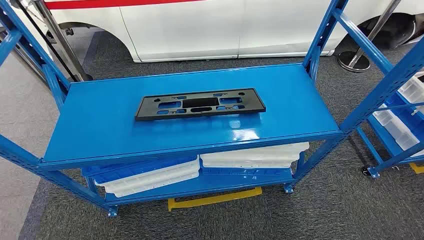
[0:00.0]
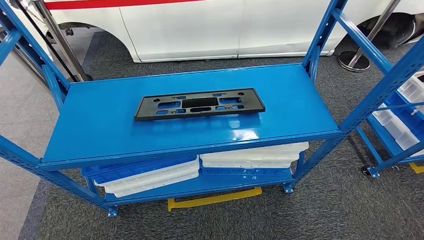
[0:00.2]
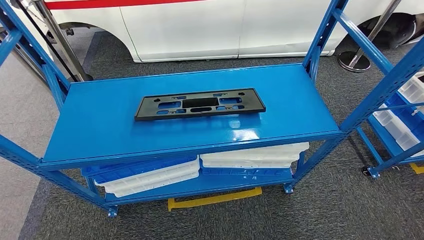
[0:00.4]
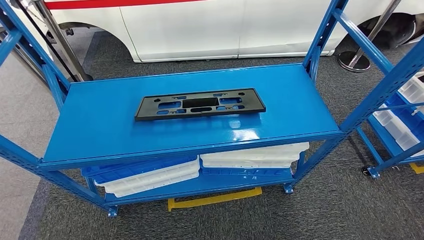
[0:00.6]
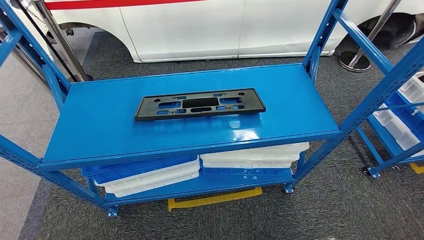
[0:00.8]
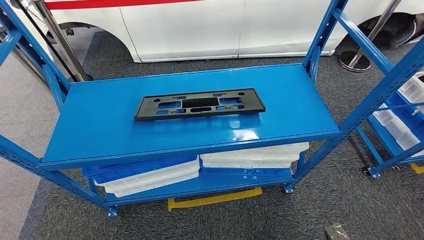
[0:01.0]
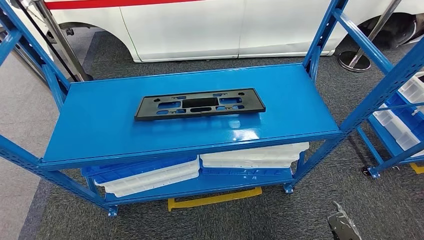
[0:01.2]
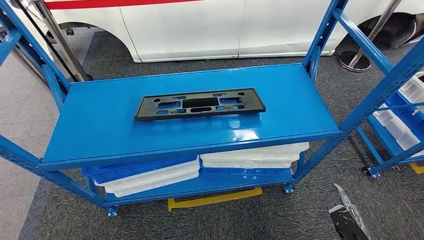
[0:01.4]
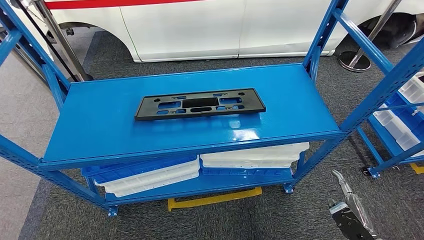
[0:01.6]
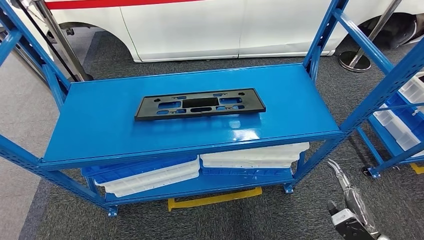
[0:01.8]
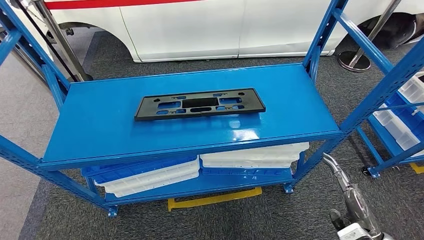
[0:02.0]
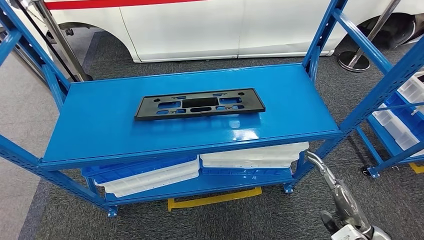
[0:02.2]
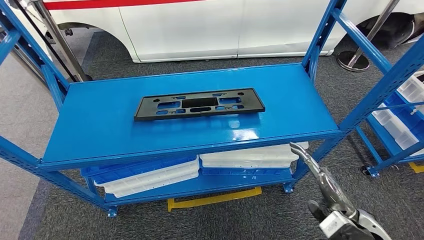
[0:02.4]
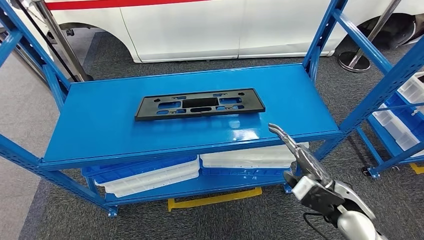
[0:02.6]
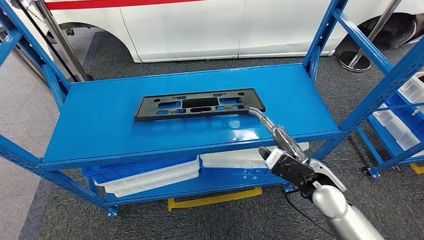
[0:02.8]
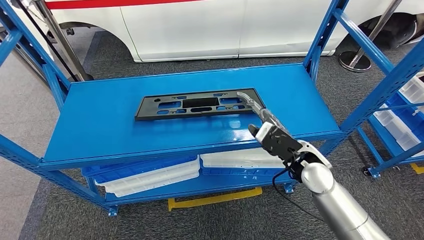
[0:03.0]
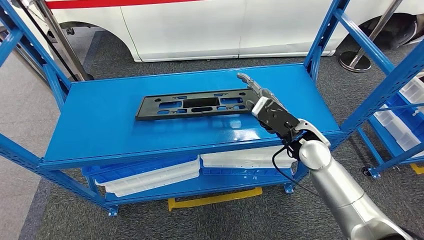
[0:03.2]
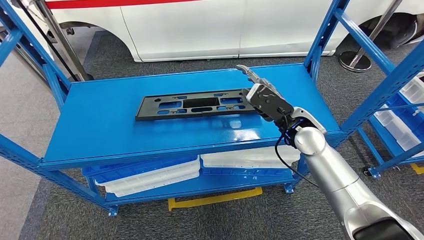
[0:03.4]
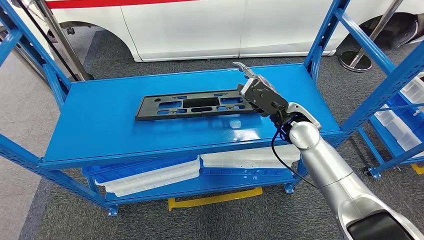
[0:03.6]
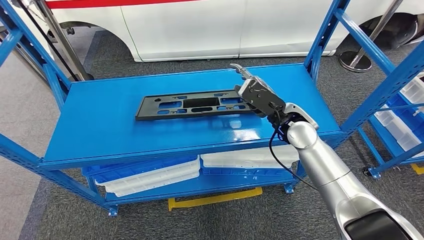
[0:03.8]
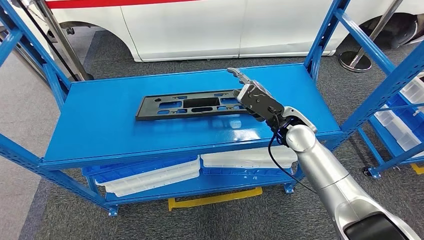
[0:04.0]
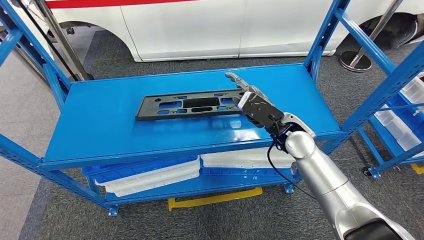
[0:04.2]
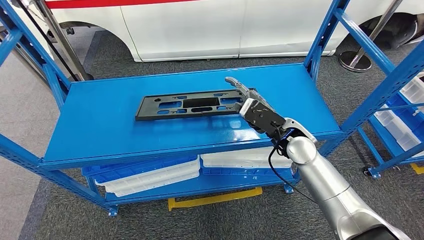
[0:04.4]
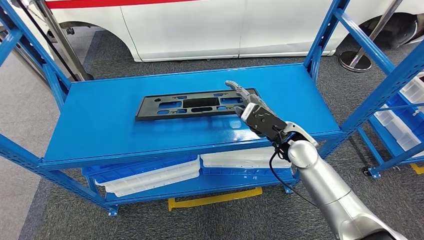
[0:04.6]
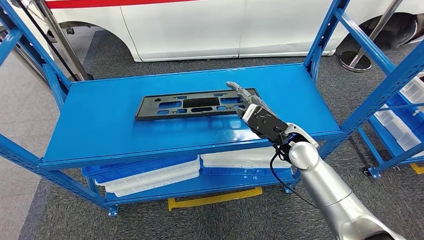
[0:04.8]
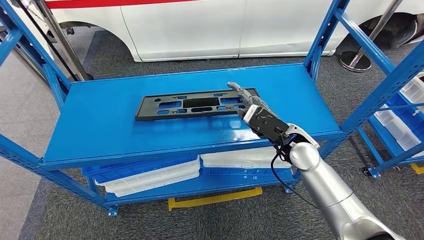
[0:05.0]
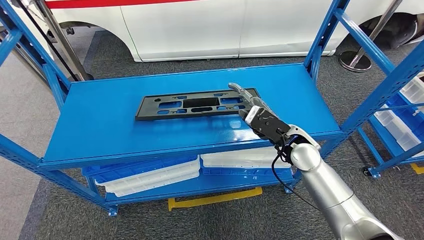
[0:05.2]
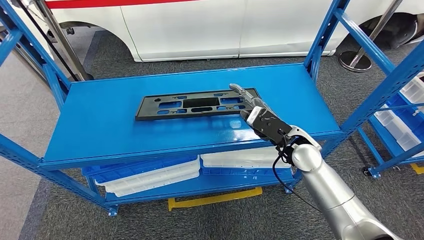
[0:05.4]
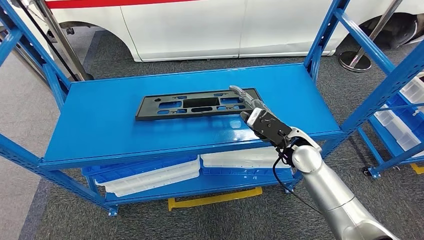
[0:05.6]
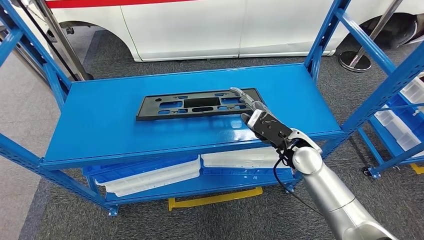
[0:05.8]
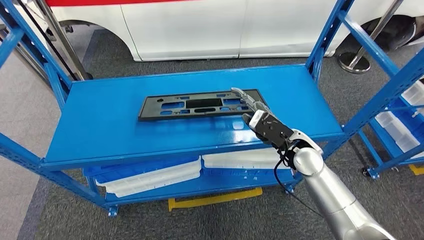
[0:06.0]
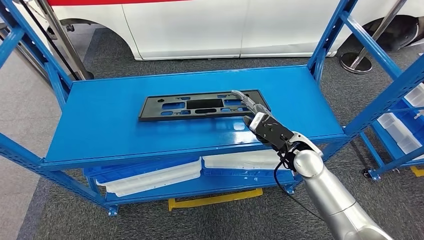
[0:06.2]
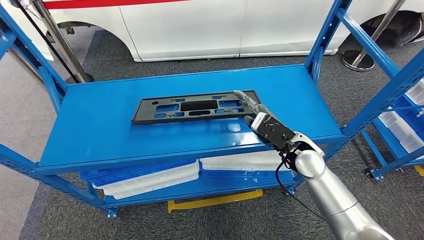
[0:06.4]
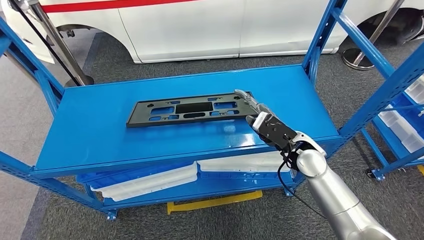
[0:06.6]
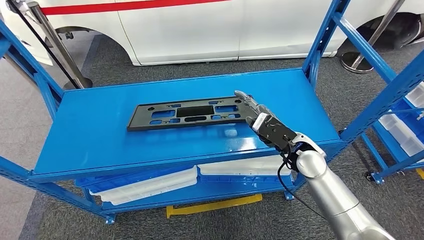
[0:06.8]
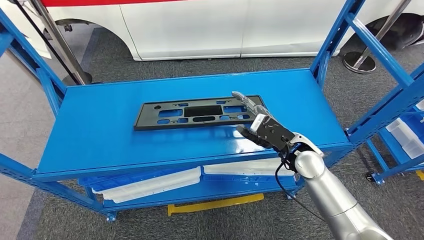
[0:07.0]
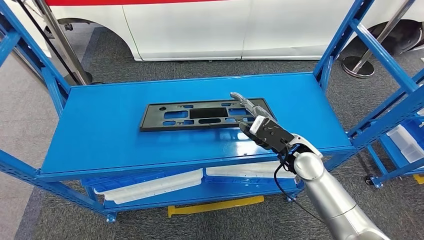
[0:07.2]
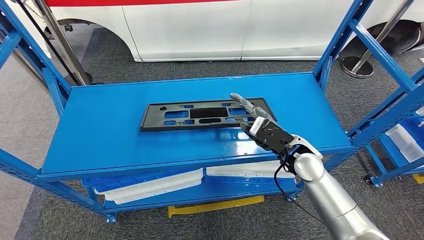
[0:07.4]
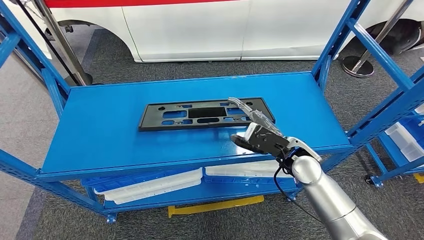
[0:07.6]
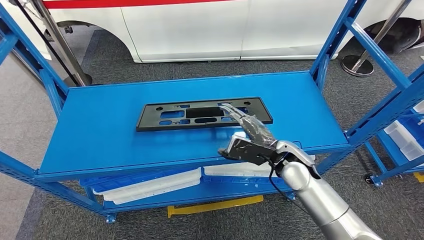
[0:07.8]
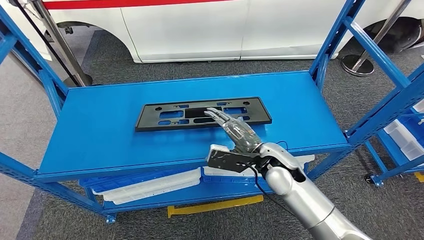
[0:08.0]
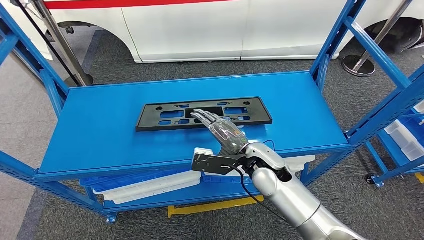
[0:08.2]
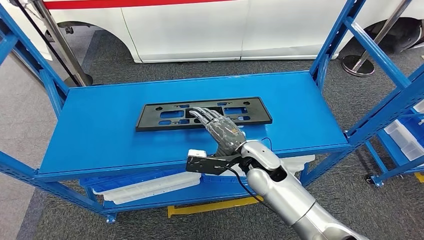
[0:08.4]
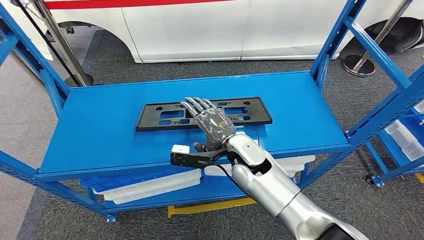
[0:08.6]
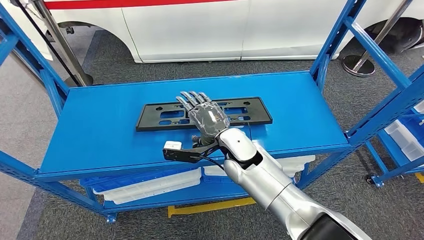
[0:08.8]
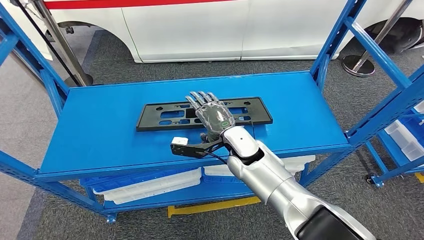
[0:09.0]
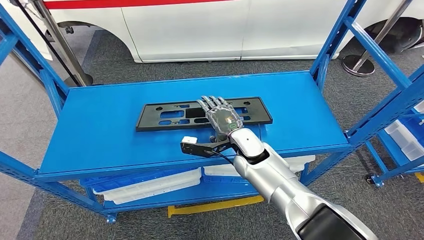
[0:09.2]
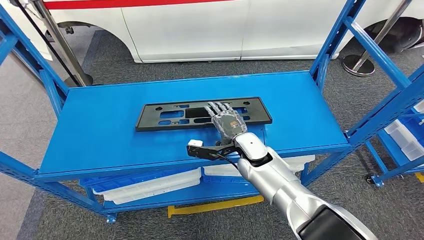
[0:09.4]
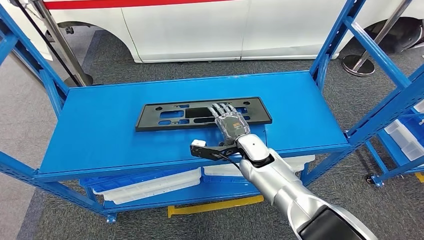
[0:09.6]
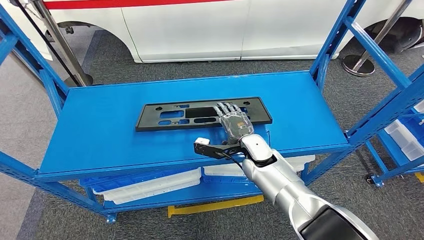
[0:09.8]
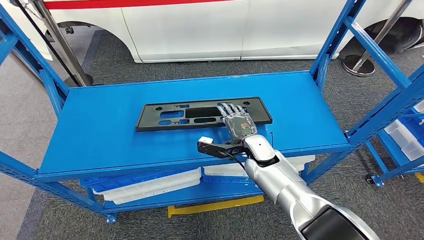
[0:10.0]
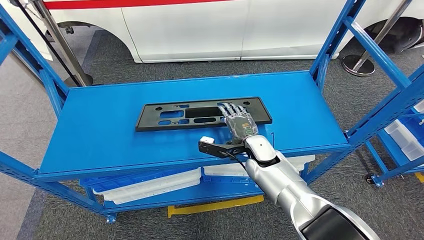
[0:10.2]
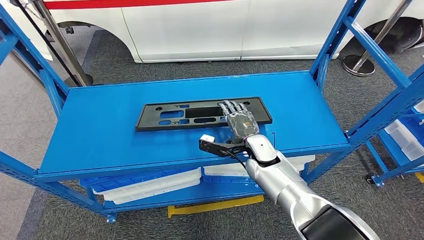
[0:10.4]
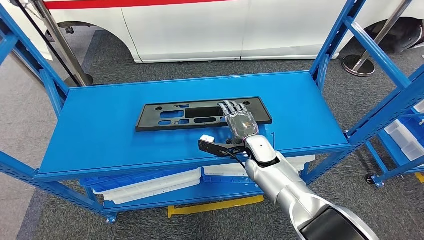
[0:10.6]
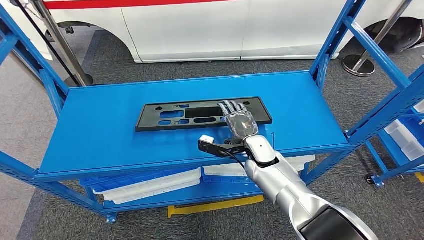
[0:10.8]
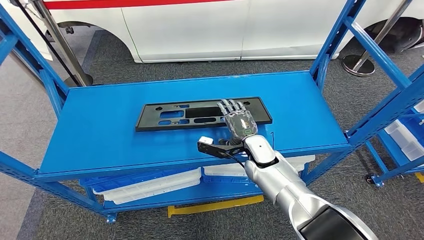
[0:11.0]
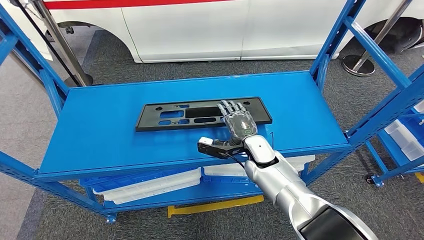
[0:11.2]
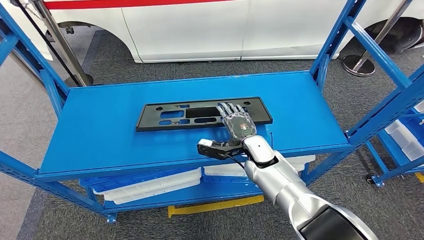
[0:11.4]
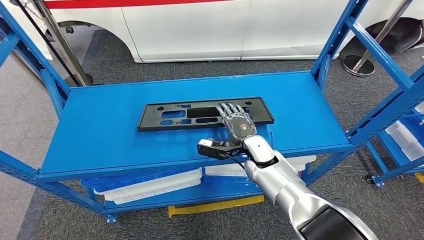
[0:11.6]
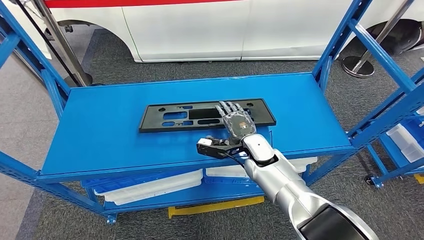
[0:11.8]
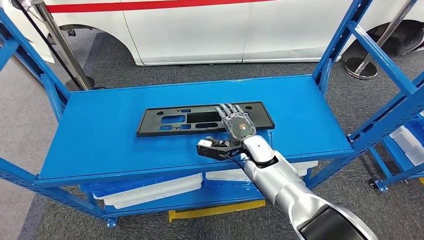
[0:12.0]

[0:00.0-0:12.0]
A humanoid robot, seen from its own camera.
0:01.6 to 0:03.0: The right hand goes about 30 cm to the left, forward and upward.
0:03.0 to 0:04.4: The right hand travels forward by approximately 5 cm.
0:04.4 to 0:06.0: There are only small adjustments of the hands.
0:07.6 to 0:09.0: The right hand travels to the left by roughly 15 cm.
0:09.0 to 0:10.4: The right hand is displaced to the right and downward by about 10 cm.

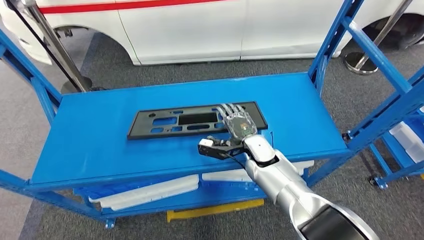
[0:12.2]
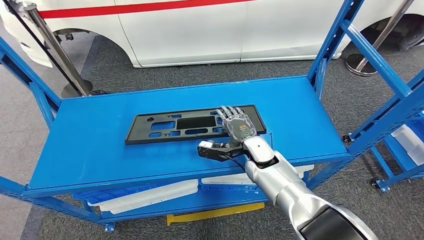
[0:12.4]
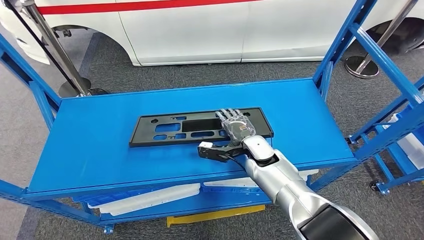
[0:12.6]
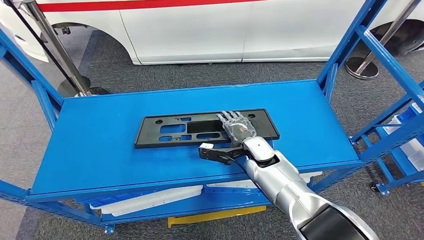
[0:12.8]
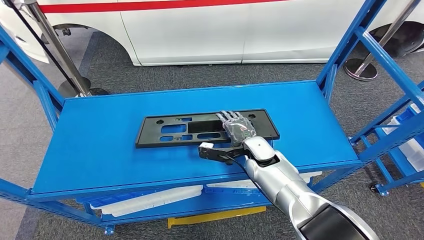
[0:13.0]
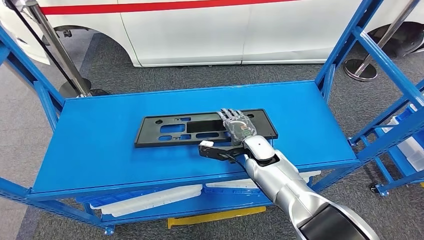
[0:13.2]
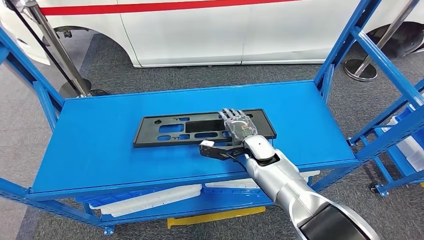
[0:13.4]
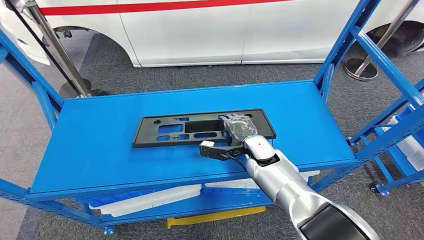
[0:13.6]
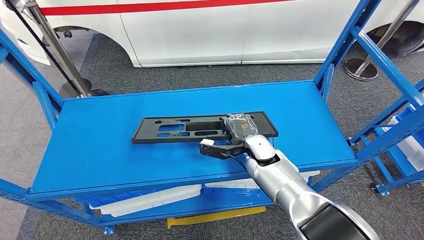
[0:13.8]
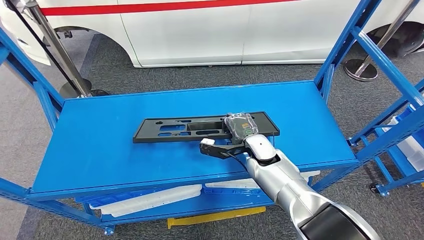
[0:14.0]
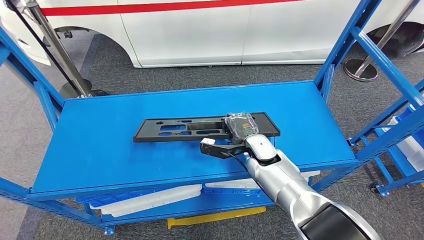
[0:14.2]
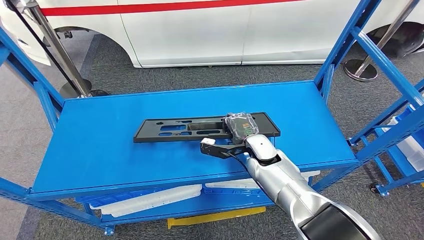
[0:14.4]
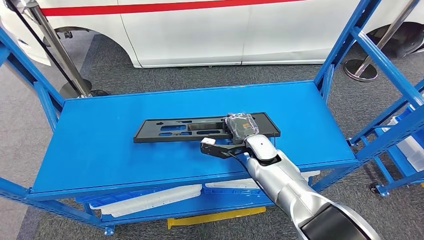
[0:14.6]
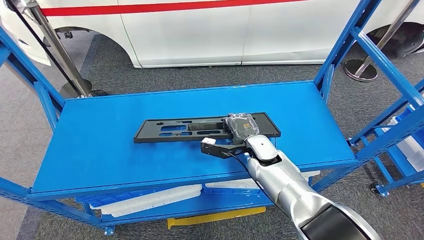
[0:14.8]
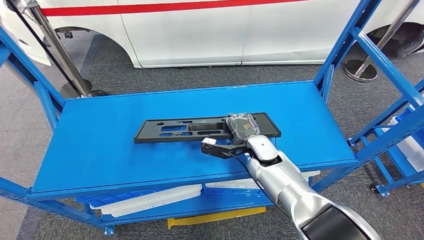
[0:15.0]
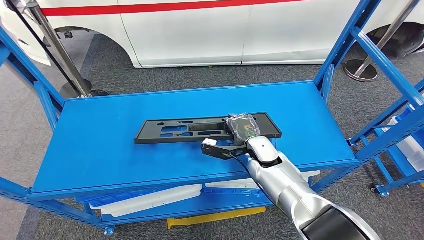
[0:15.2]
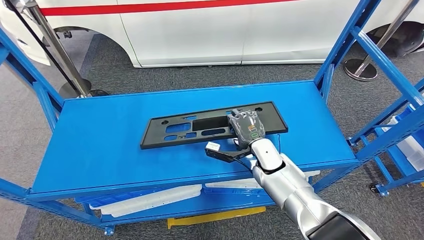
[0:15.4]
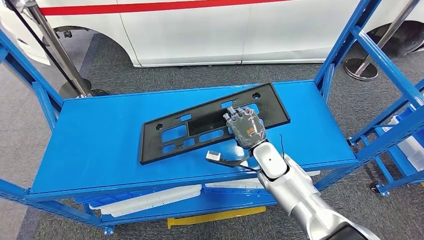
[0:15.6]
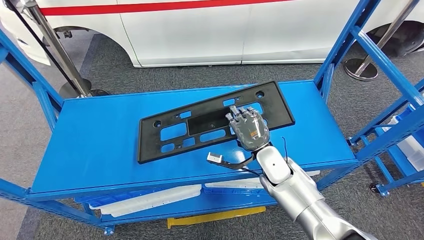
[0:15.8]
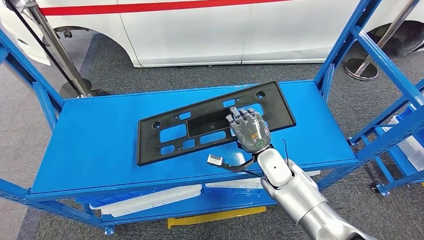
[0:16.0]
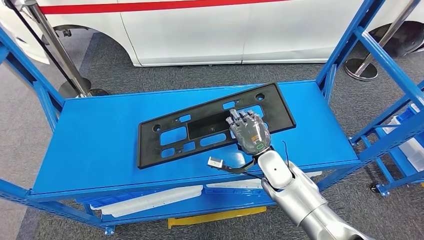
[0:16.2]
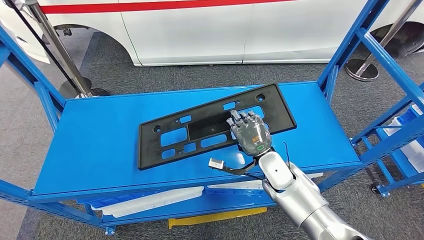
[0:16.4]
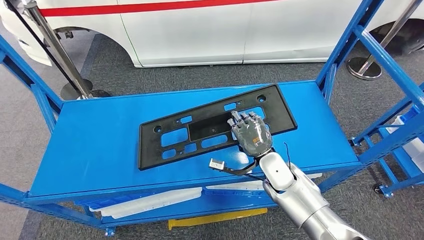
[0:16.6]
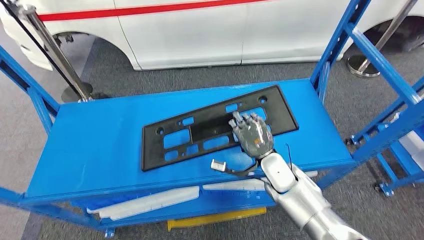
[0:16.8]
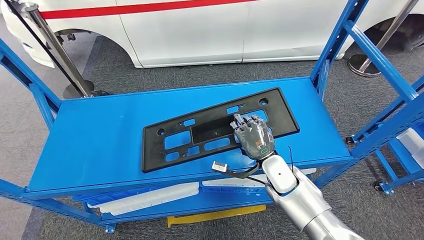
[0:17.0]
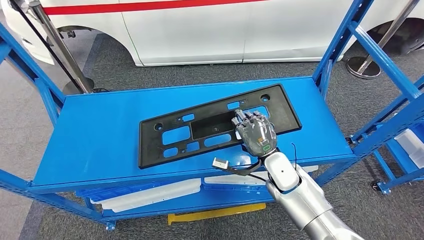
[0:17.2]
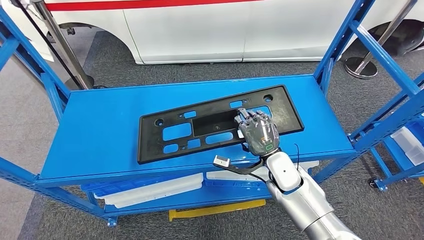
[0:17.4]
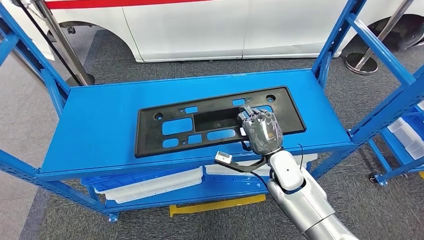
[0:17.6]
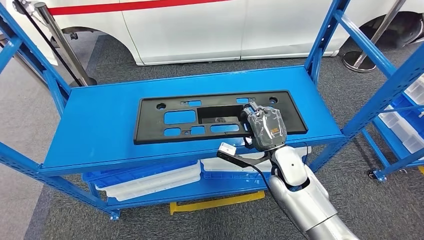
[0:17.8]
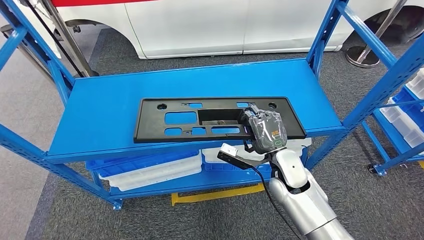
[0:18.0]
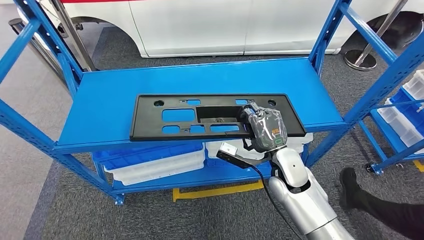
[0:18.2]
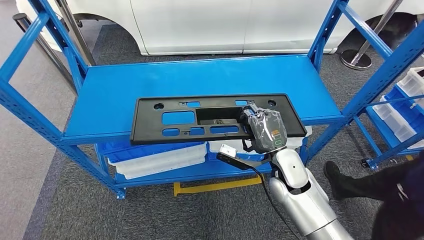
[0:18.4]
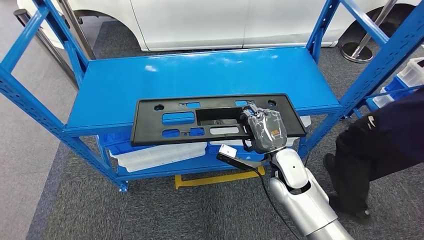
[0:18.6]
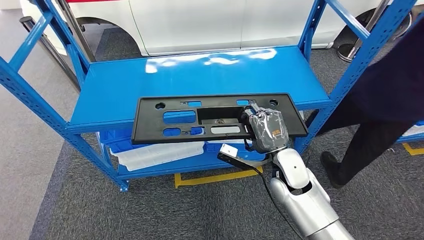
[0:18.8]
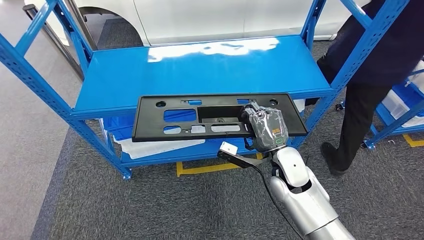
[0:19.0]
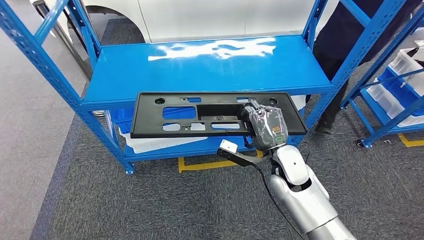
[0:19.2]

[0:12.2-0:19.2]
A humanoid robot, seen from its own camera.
Step, 0:12.2 to 0:16.8: Pick up the large material from the shelf.
0:13.6 to 0:15.0: Both hands stay about where they are.
